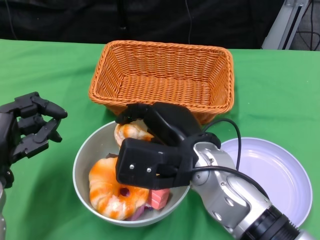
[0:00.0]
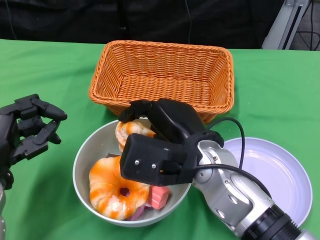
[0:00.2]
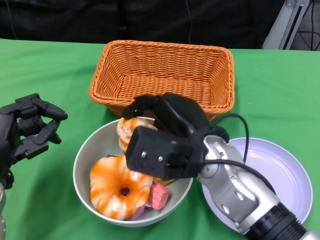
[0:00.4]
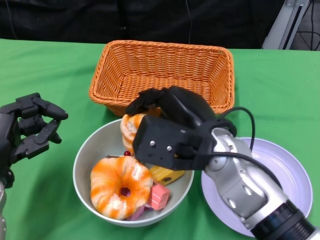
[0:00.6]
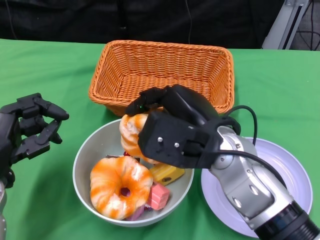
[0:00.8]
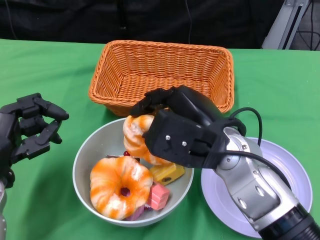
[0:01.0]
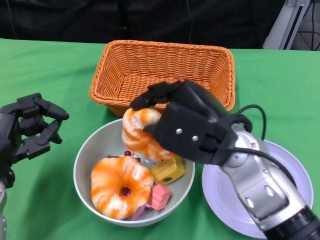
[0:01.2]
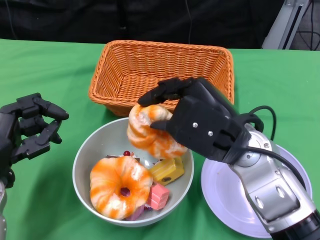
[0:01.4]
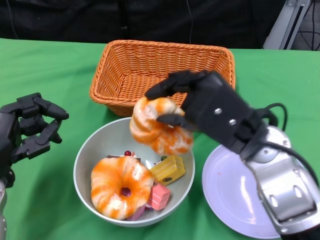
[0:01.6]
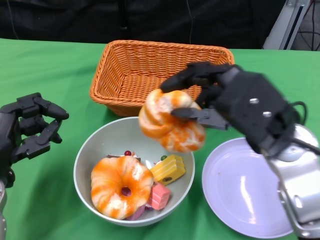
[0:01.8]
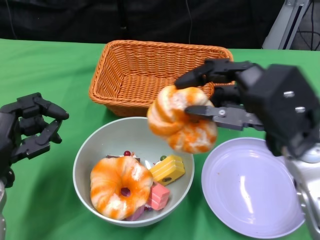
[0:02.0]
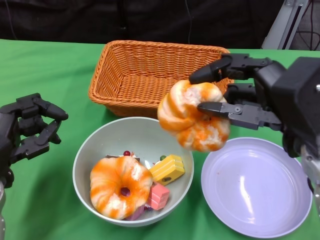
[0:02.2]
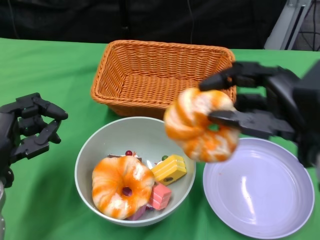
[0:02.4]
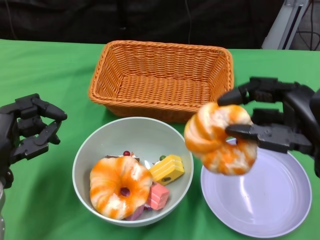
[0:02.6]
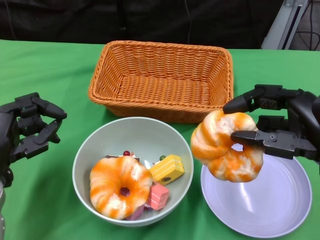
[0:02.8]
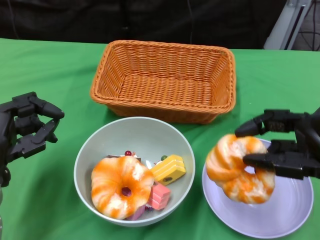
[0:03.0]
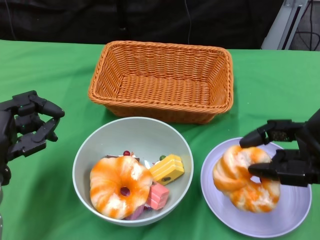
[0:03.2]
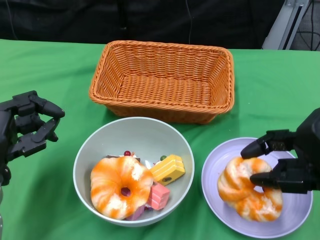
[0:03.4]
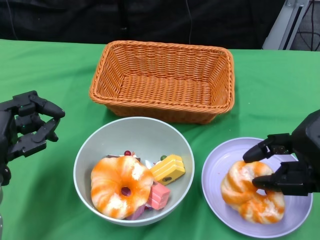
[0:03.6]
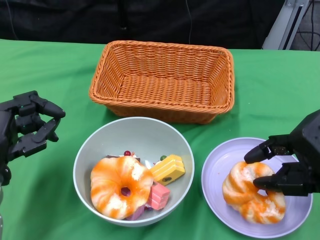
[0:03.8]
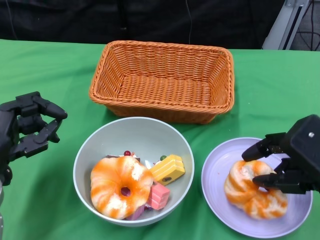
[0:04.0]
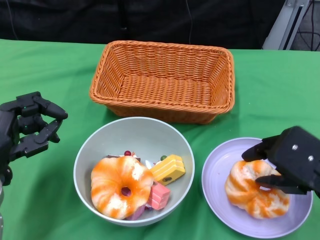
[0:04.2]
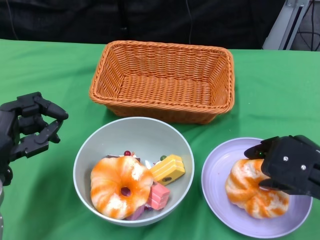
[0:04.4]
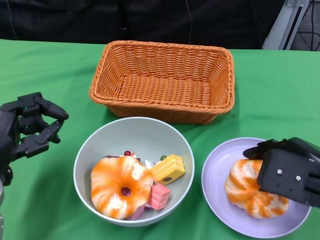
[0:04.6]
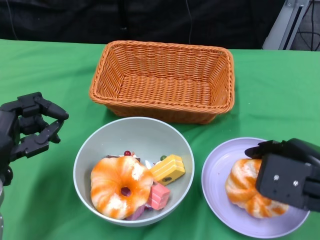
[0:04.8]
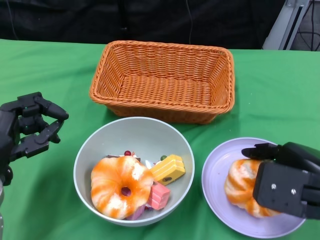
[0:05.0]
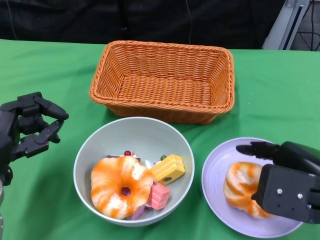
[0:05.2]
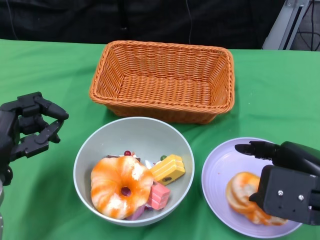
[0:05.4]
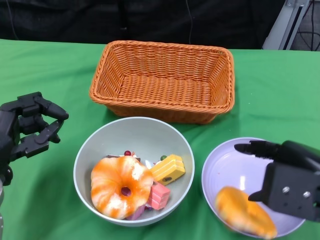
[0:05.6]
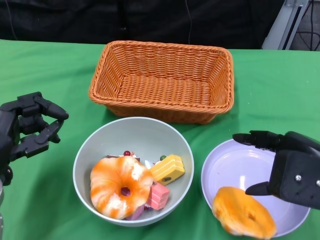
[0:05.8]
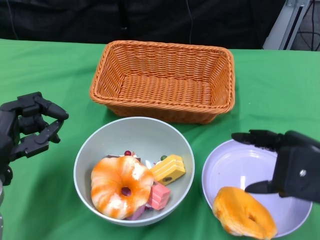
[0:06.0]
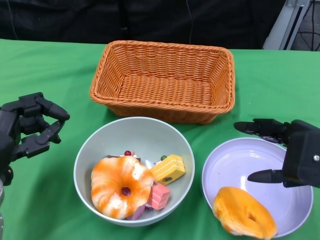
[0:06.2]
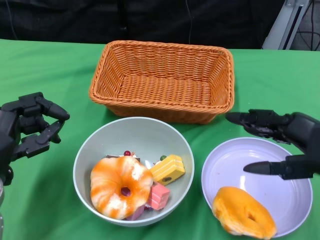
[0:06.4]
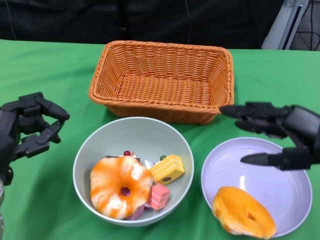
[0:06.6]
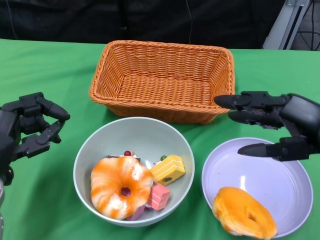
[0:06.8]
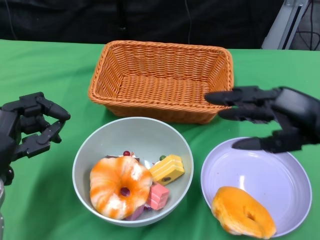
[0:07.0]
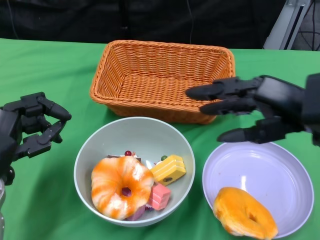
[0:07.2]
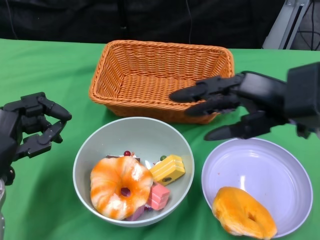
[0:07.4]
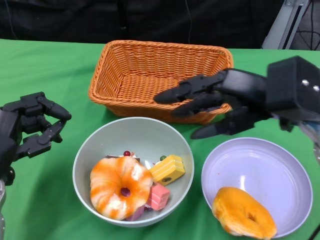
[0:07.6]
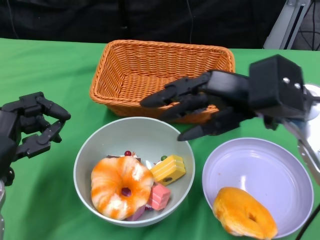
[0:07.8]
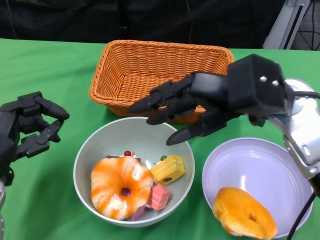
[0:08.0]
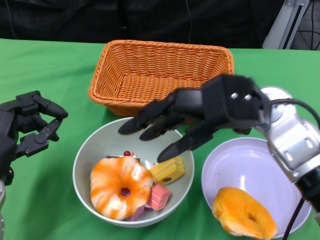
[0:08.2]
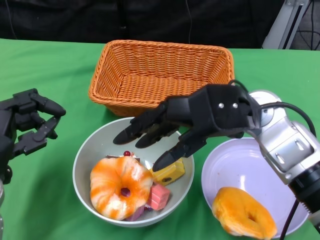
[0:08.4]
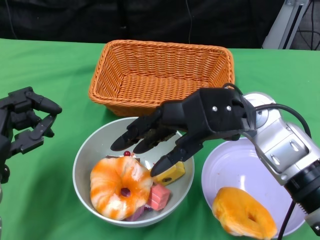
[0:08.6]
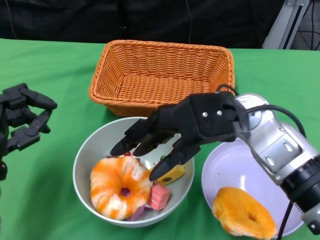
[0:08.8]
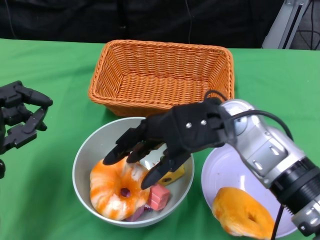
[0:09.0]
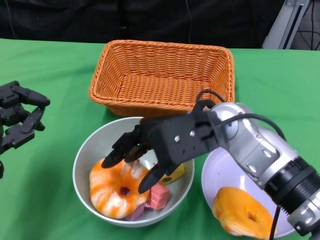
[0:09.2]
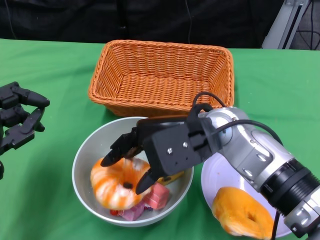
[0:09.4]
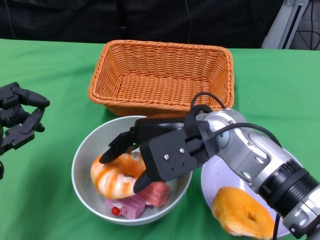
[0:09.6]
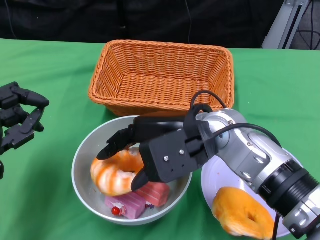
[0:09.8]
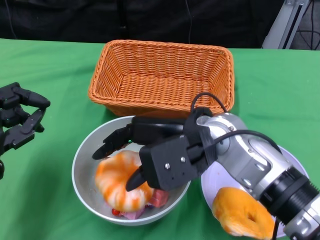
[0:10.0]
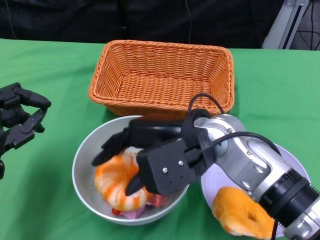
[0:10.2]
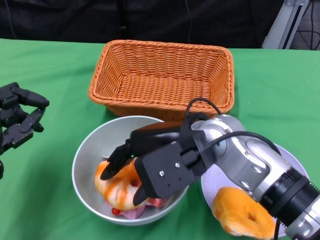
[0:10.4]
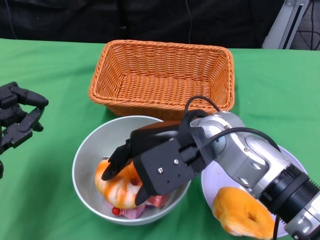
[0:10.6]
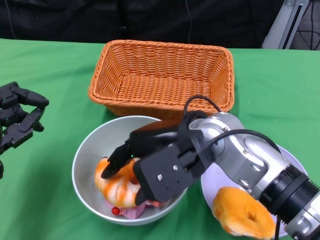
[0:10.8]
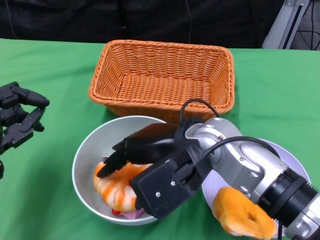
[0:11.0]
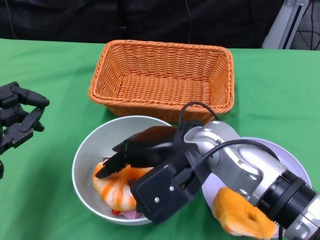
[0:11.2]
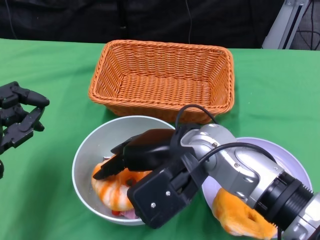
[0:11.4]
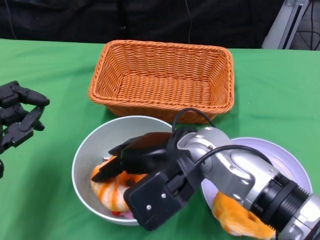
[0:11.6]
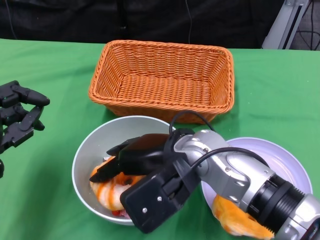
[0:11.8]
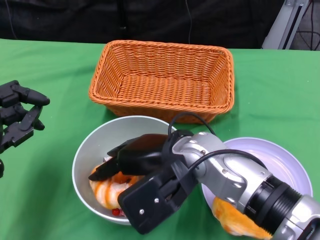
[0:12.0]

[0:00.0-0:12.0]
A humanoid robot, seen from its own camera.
0:00.0 to 0:01.6: The right hand is displaced to the right by about 5 cm.
0:01.6 to 0:03.0: The right hand moves to the right, approximately 10 cm.
0:04.4 to 0:06.0: There are only small adjustments of the hands.
0:06.0 to 0:07.6: The right hand moves forward and to the left, roughly 10 cm.
0:07.6 to 0:09.0: The right hand travels to the left by about 10 cm.

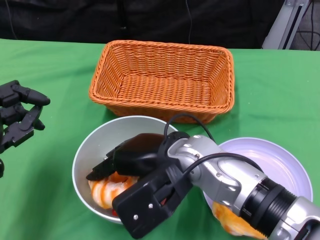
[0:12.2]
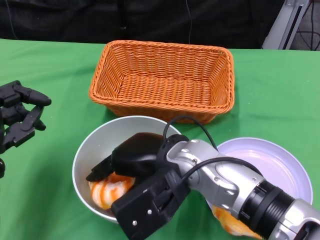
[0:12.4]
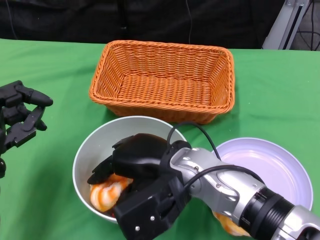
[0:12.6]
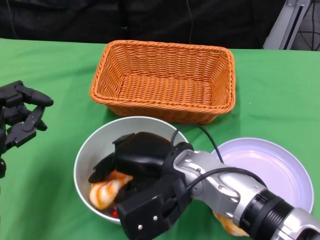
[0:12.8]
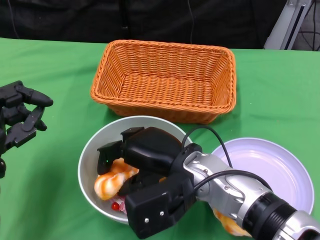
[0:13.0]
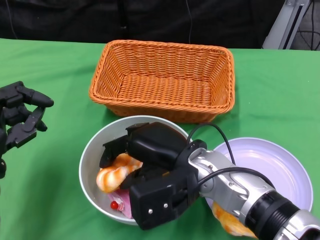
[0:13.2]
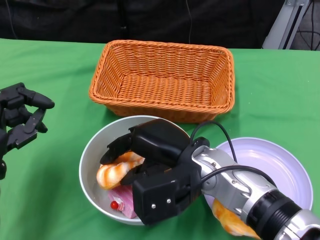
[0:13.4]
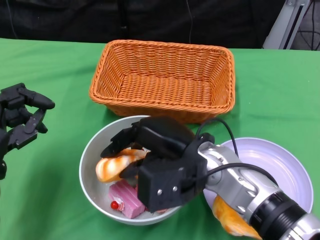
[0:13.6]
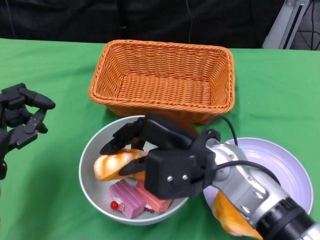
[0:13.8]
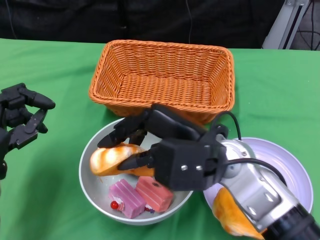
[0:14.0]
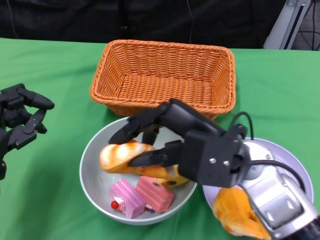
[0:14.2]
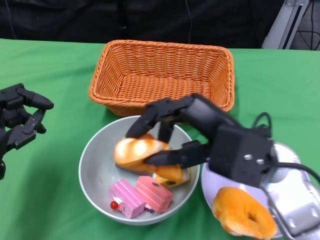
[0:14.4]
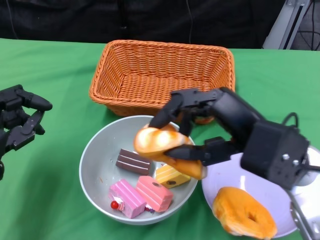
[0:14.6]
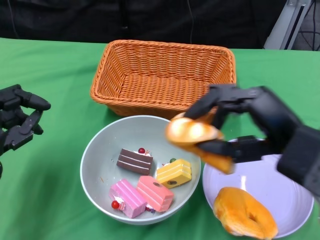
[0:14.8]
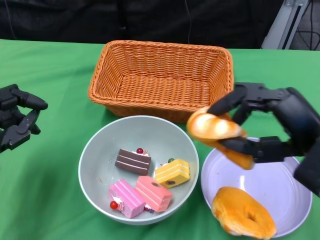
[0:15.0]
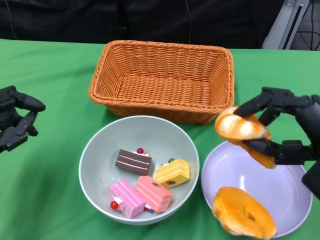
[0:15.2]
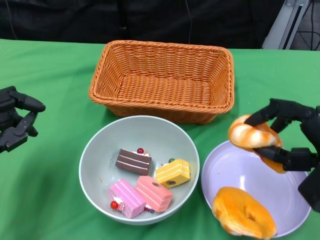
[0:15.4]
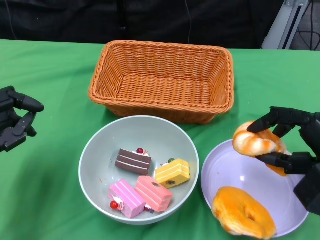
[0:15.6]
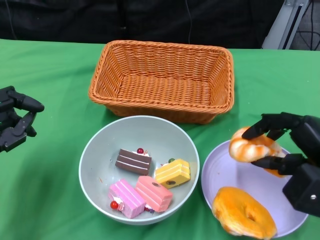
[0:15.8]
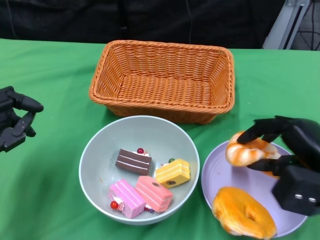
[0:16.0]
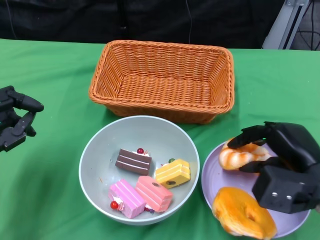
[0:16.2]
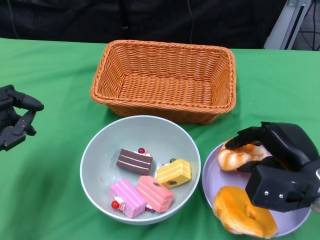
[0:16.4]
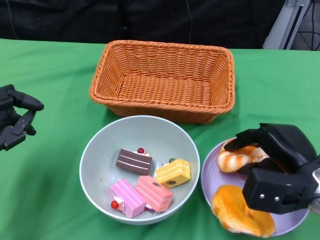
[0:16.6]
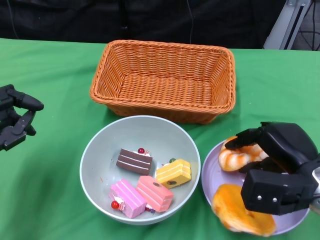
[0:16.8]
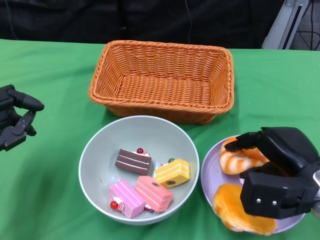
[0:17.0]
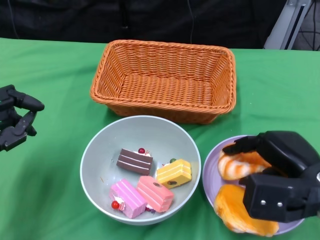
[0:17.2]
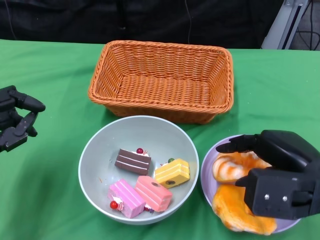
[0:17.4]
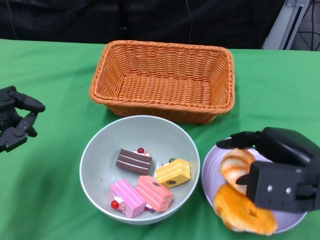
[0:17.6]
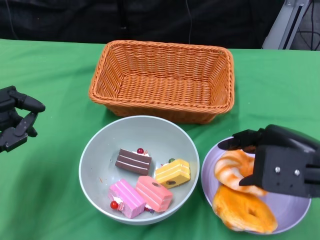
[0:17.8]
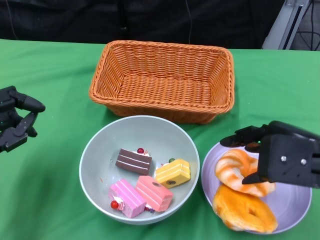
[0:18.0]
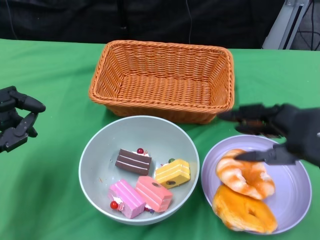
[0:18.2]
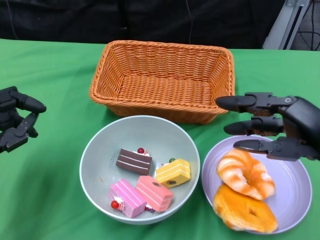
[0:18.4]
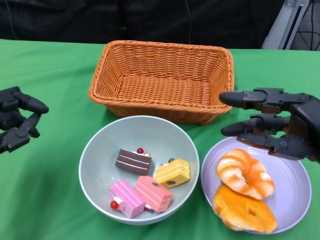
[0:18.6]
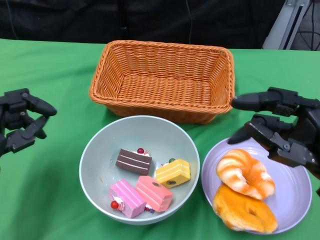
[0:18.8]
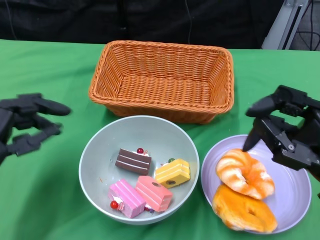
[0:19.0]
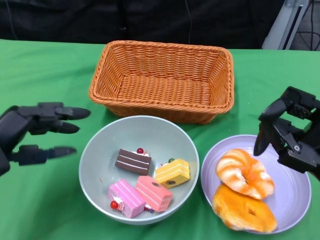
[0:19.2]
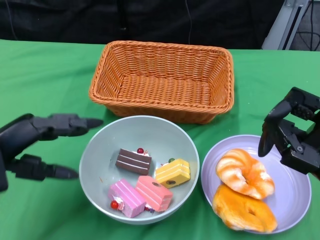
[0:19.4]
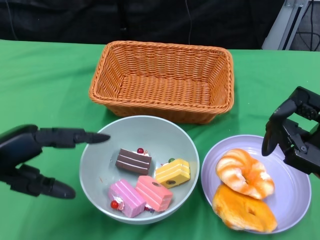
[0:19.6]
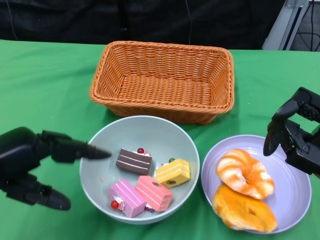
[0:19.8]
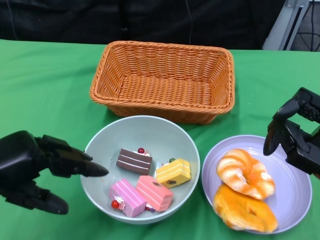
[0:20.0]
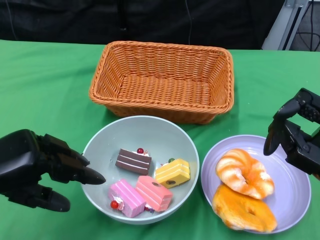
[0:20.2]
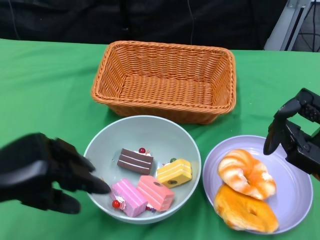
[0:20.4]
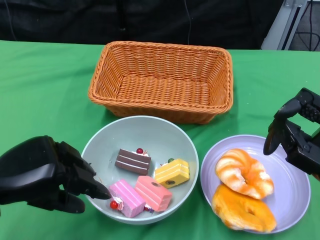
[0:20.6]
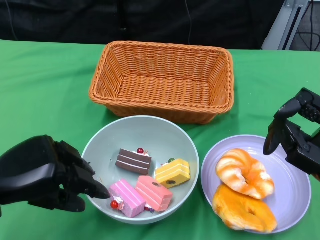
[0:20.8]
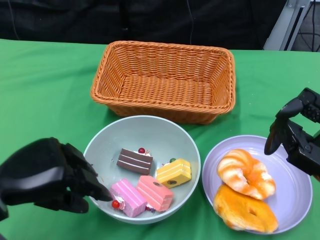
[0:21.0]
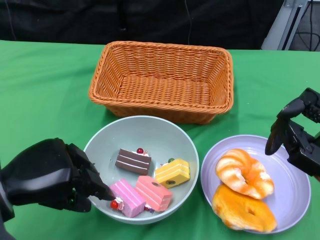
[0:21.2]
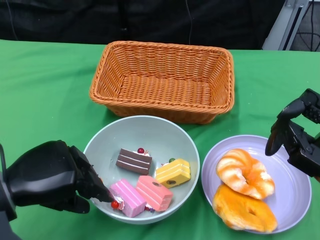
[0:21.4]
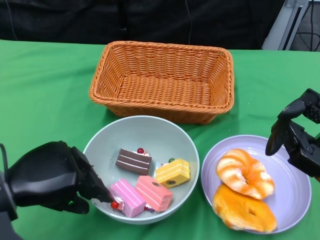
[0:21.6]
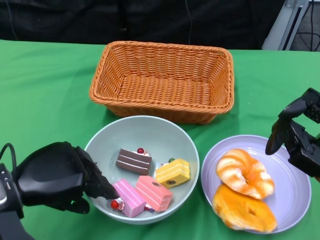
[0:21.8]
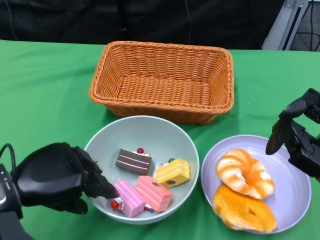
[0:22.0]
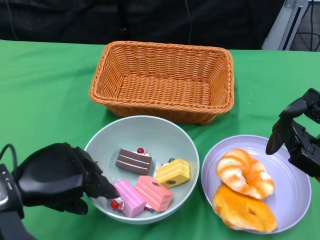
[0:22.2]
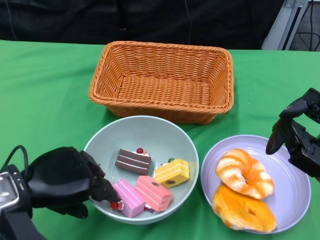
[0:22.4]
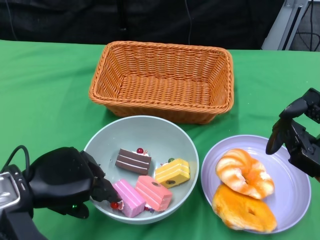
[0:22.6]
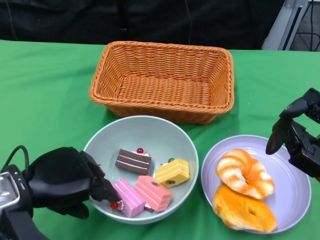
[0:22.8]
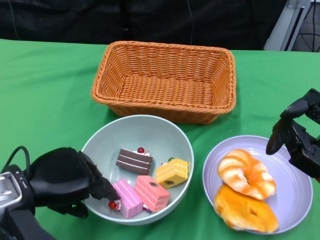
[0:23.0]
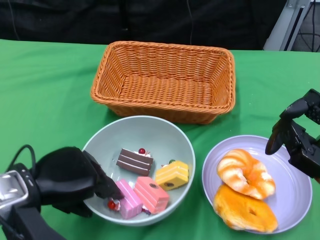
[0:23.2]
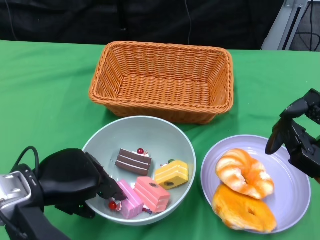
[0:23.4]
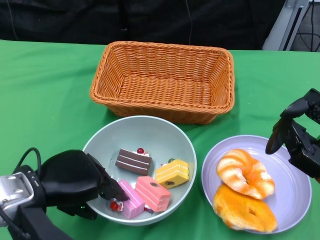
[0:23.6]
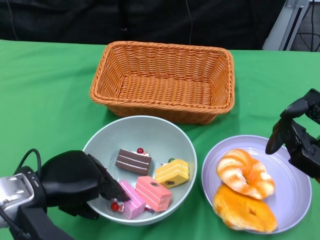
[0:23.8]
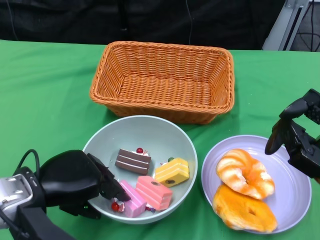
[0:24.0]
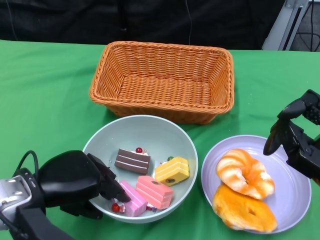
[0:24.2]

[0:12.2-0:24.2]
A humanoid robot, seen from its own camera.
Step, 0:12.2 to 0:18.2: Pick up the bread with the right gripper and place it on the plate.
0:13.8 to 0:15.2: The right hand shifts roughly 15 cm to the right.
0:15.2 to 0:16.6: The right hand moves downward, about 10 cm.
0:16.6 to 0:18.2: The right hand moves upward, roughly 10 cm.
0:18.2 to 0:19.8: The right hand changes place by roughly 5 cm, while the left hand goes about 5 cm upward.
0:19.8 to 0:21.2: The left hand changes place by roughly 5 cm.
0:21.2 to 0:22.6: The hands move only a little.
0:22.6 to 0:24.2: The hands make only small movements.
